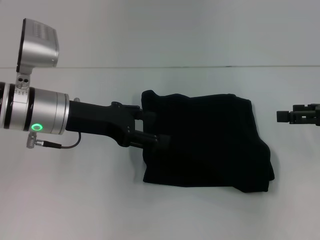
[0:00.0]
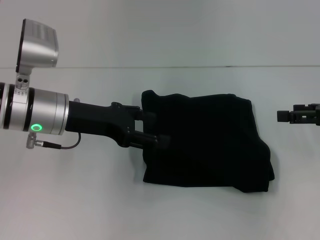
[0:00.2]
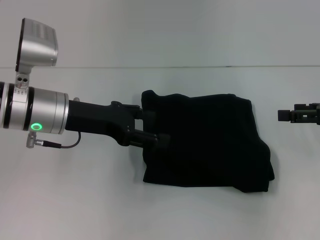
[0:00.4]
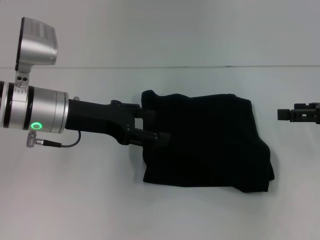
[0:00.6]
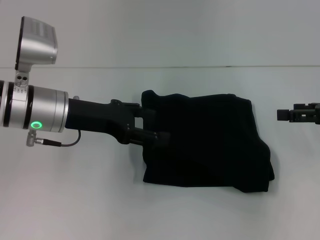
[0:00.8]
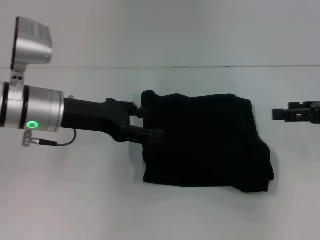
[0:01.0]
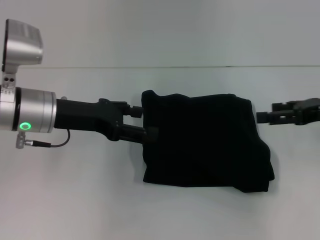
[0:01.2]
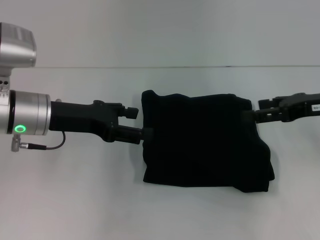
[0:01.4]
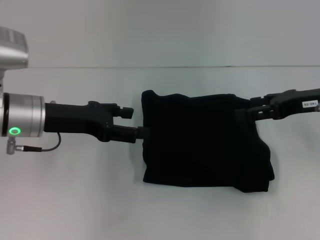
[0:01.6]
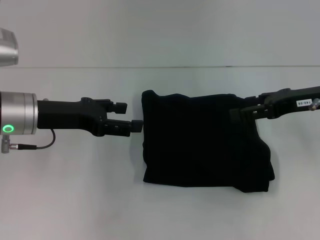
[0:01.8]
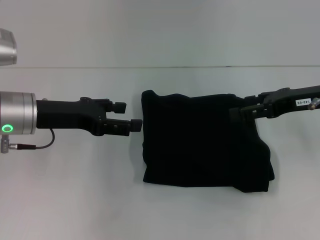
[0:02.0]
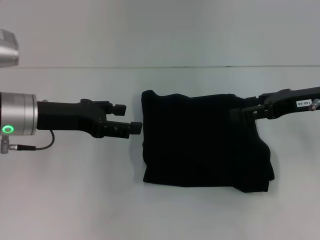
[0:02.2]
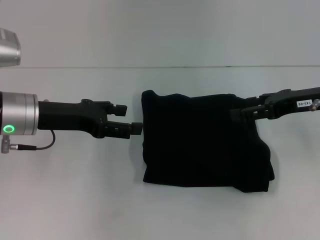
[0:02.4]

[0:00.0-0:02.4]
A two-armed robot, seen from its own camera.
0.0 to 1.2 s: The grippers make only small movements.
1.2 to 2.4 s: The grippers move only a little.

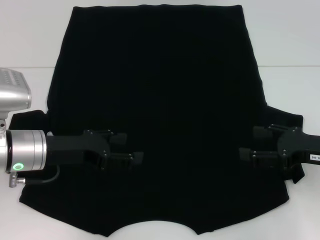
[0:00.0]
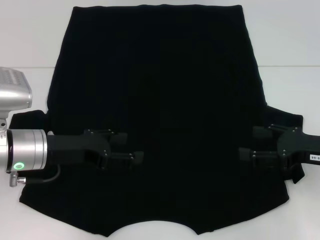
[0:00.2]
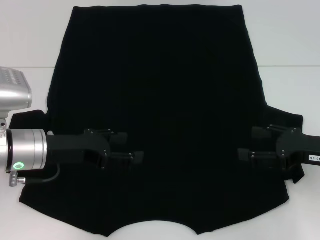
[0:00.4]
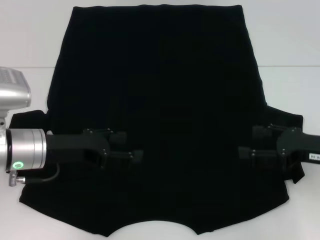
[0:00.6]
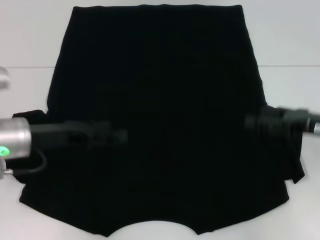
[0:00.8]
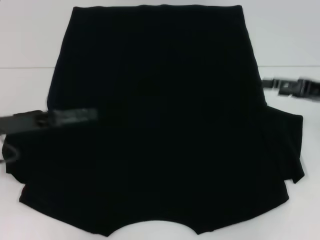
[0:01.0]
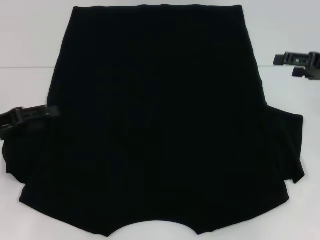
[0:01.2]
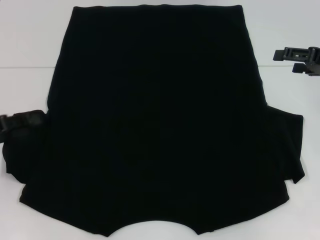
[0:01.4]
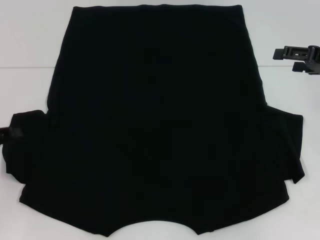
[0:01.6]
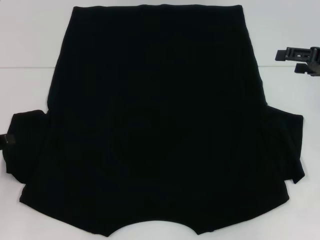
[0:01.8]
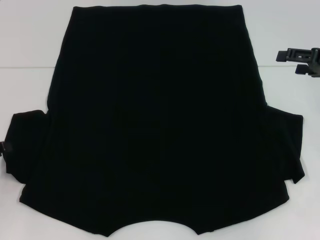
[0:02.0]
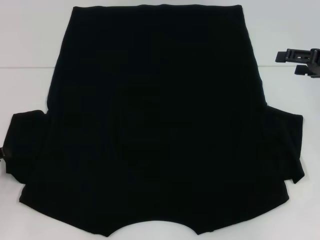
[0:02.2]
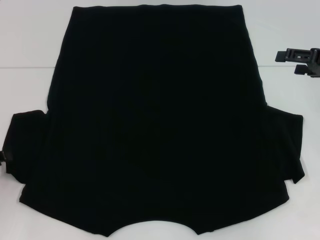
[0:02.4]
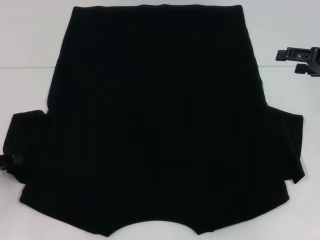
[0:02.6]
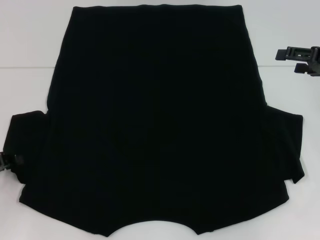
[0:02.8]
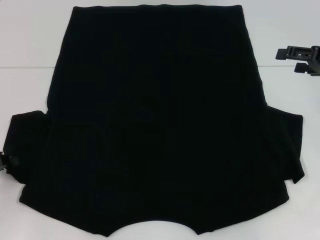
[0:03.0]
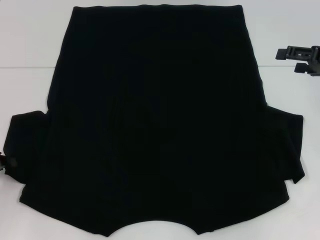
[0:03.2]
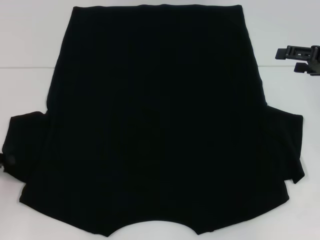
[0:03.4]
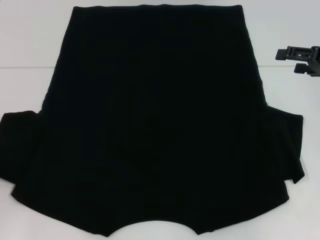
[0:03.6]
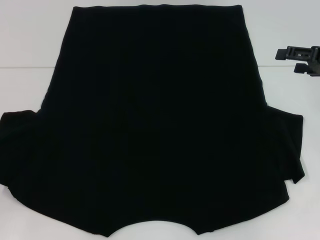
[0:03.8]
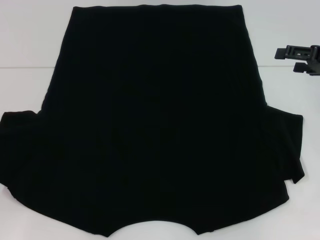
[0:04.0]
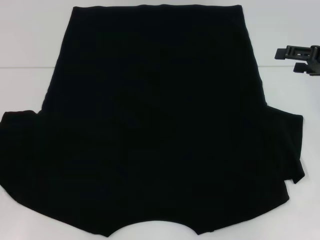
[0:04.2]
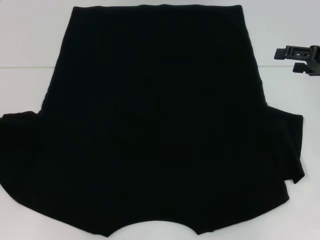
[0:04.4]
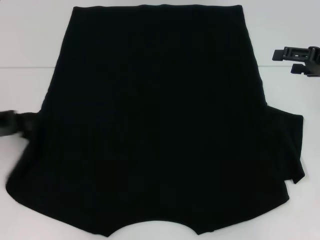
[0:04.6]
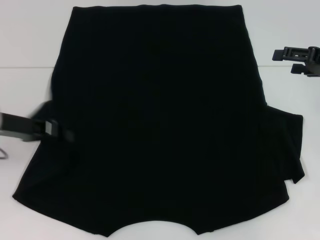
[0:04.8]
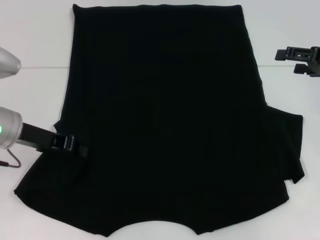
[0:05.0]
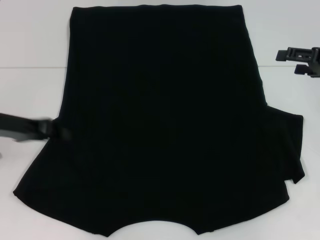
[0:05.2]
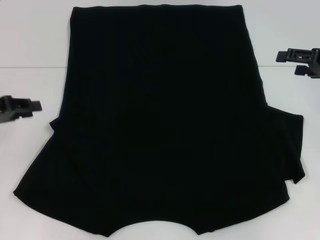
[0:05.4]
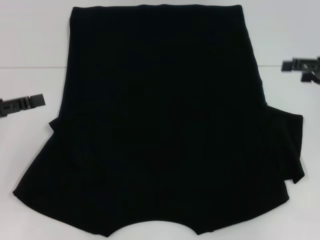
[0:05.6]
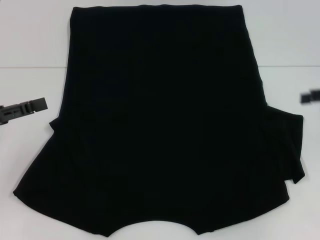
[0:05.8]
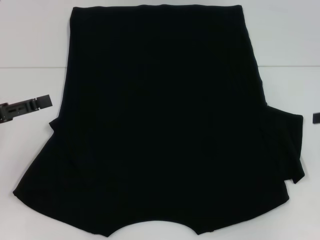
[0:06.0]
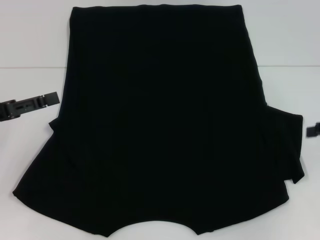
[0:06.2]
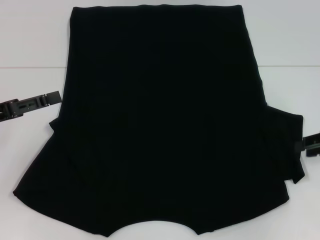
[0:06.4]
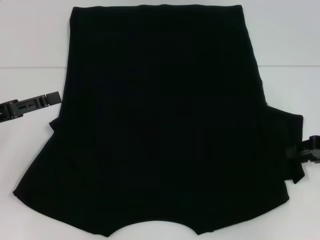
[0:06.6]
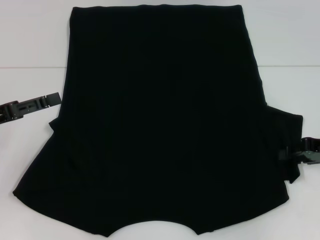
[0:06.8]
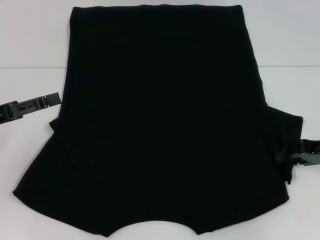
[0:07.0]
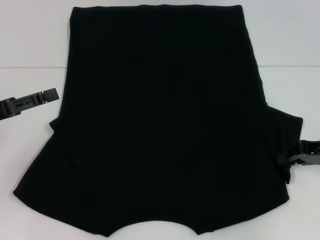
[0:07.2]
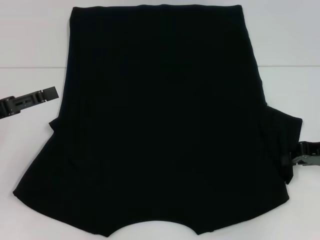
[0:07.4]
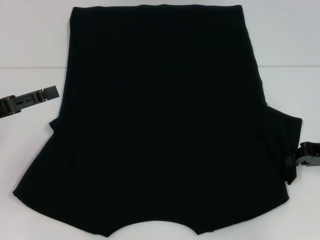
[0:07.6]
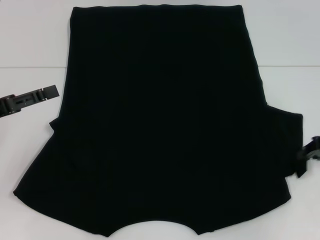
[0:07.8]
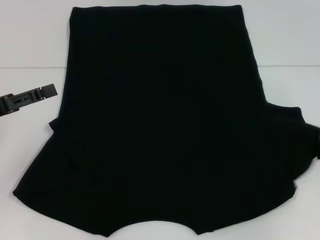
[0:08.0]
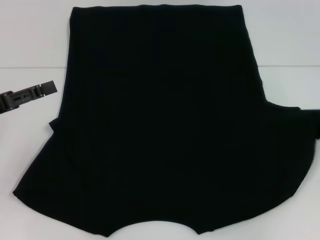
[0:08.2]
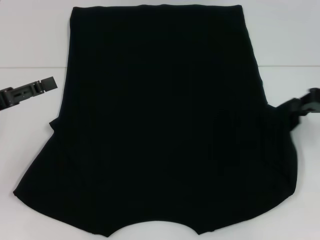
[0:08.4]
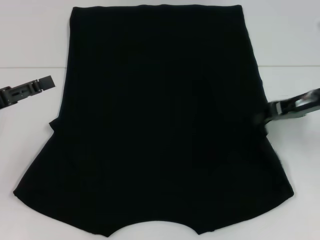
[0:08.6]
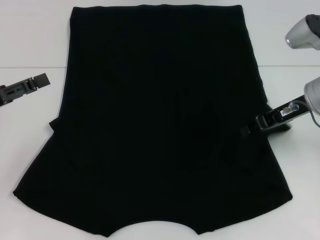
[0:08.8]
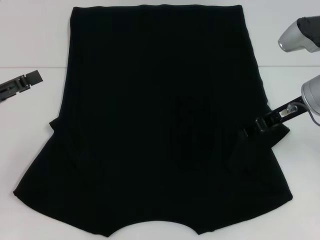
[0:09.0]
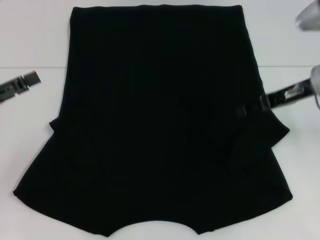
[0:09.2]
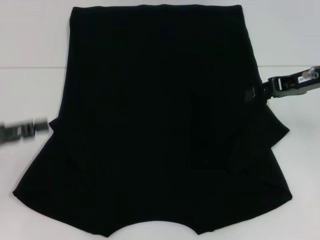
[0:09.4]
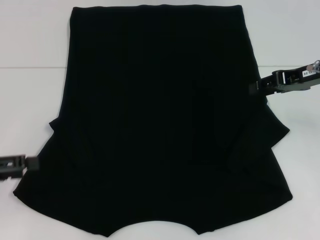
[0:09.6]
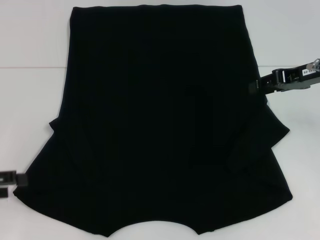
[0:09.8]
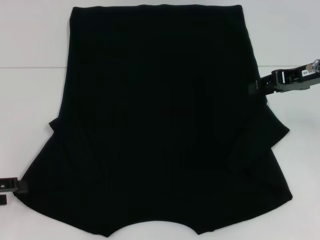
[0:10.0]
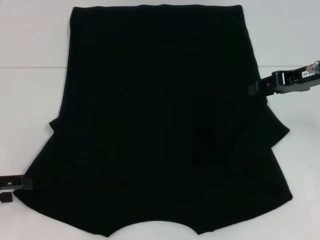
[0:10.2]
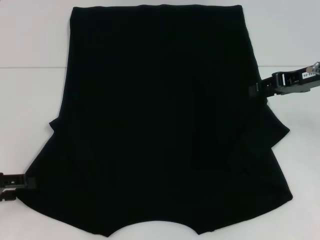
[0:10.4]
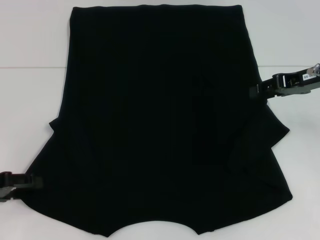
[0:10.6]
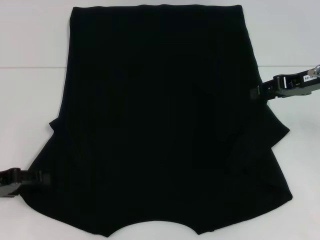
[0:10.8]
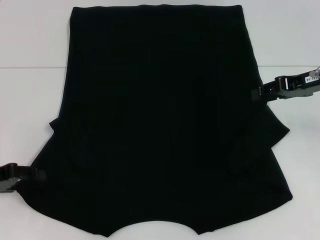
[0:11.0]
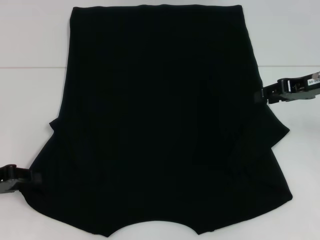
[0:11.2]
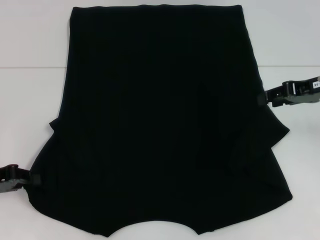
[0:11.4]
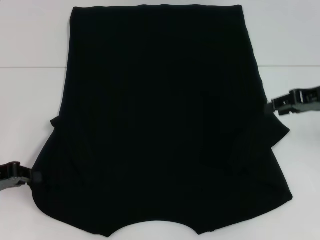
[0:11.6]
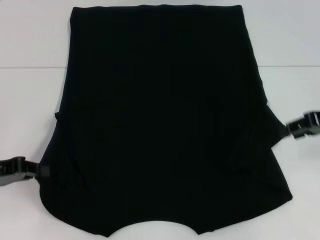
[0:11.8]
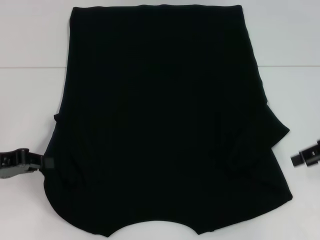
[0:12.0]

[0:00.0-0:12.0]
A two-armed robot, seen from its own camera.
Step, 0.0 to 5.0 s: Fold the bottom left sleeve with your left hand.
Step, 5.2 to 9.0 s: Fold the bottom right sleeve with your right hand.
Step, 9.2 to 11.8 s: Grab the bottom left corner with your left hand.
0.0 to 1.6 s: The right gripper travels forward and upward by approximately 10 cm, while the left gripper goes about 15 cm to the left.
3.0 to 4.4 s: The left gripper moves upward, some 5 cm.
4.4 to 6.0 s: The left gripper moves roughly 15 cm to the right and comes back, and opens up; the right gripper is displaced backward by approximately 5 cm.
6.0 to 7.6 s: The right gripper moves downward and to the left, approximately 10 cm, and closes its fingers.
7.6 to 9.0 s: The right gripper heads to the left, upward and forward, covering roughly 10 cm.
9.0 to 10.4 s: The right gripper changes place by some 5 cm; the left gripper changes place by approximately 5 cm.
10.4 to 12.0 s: The right gripper heads backward and to the right, covering about 10 cm, while the left gripper closes.

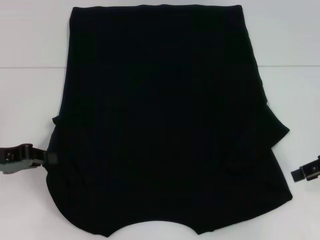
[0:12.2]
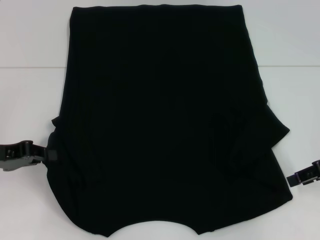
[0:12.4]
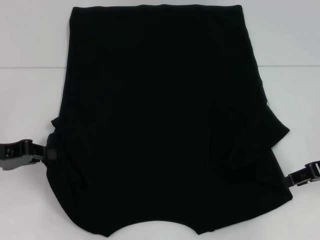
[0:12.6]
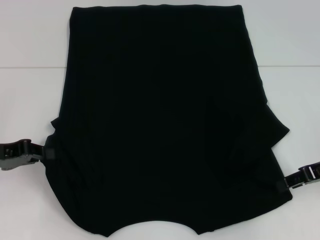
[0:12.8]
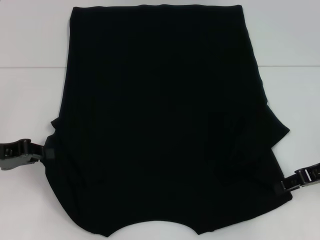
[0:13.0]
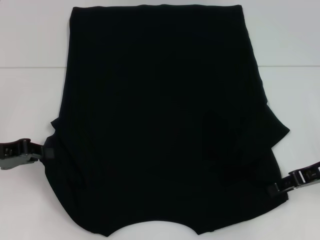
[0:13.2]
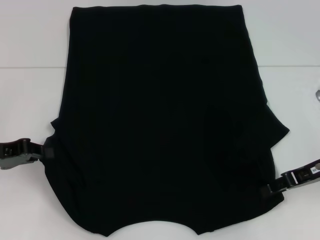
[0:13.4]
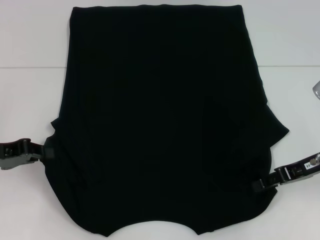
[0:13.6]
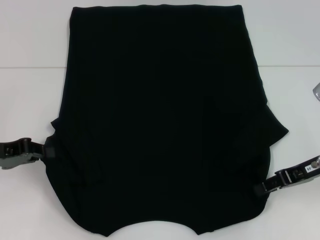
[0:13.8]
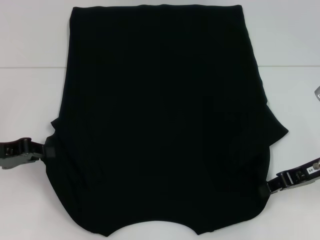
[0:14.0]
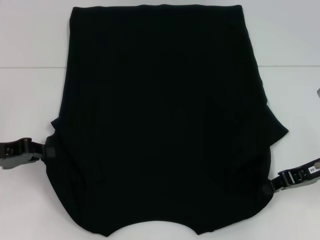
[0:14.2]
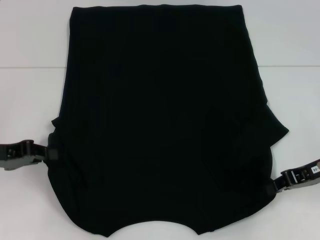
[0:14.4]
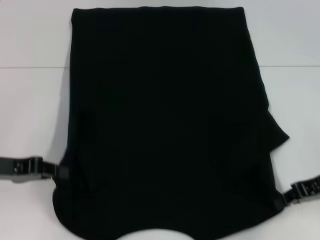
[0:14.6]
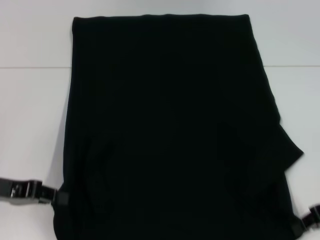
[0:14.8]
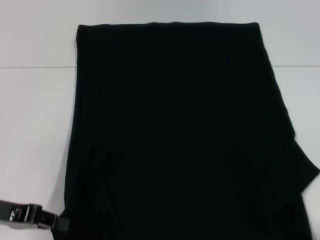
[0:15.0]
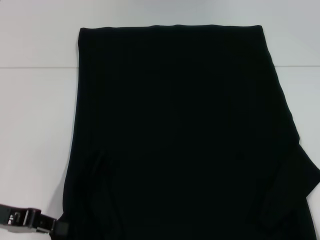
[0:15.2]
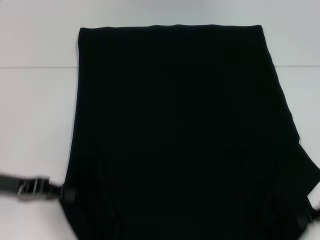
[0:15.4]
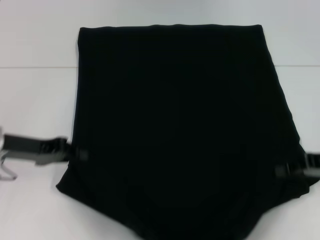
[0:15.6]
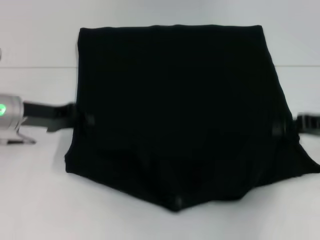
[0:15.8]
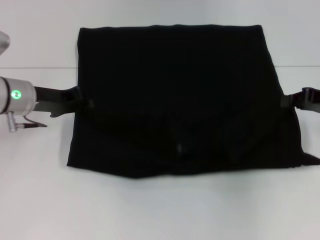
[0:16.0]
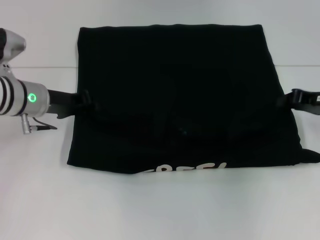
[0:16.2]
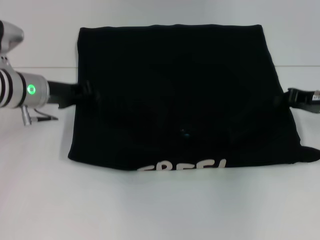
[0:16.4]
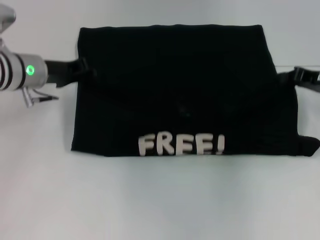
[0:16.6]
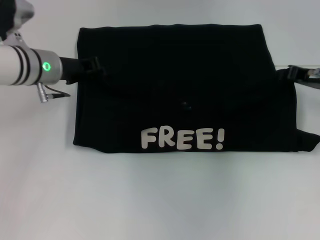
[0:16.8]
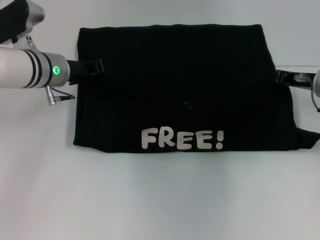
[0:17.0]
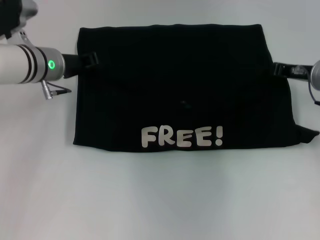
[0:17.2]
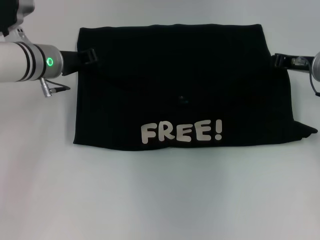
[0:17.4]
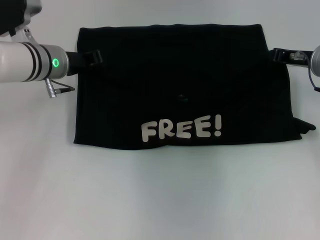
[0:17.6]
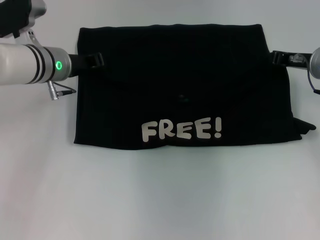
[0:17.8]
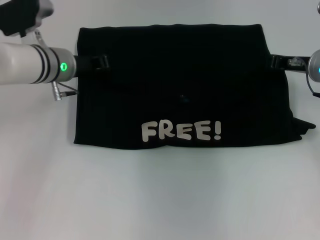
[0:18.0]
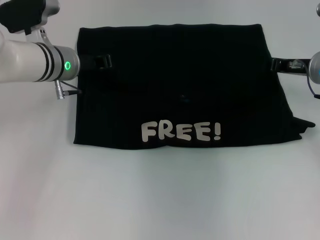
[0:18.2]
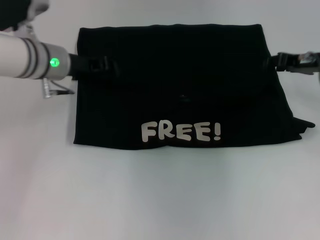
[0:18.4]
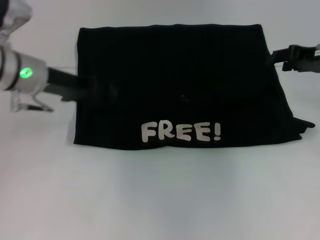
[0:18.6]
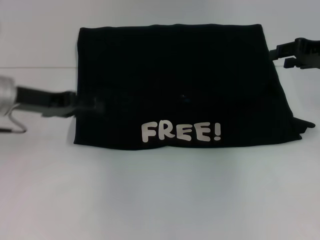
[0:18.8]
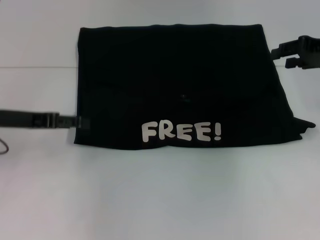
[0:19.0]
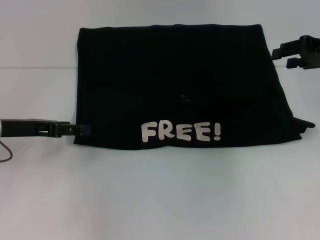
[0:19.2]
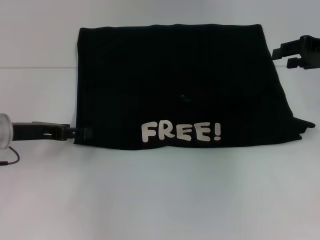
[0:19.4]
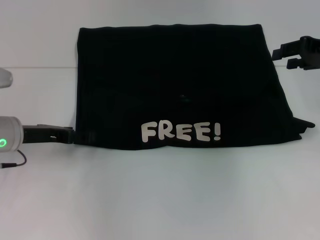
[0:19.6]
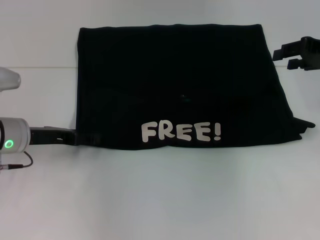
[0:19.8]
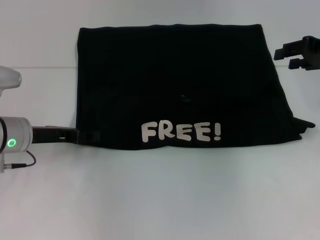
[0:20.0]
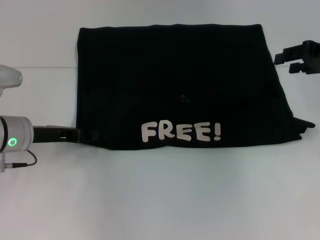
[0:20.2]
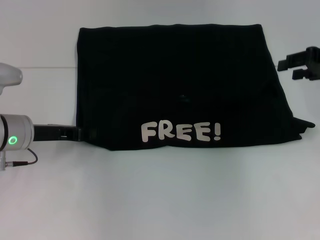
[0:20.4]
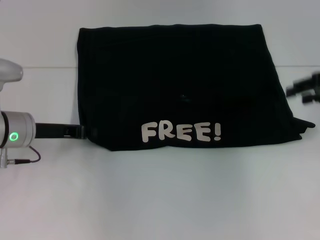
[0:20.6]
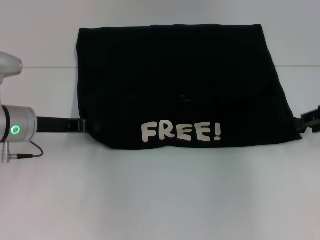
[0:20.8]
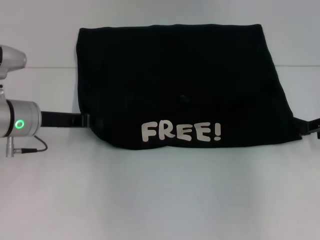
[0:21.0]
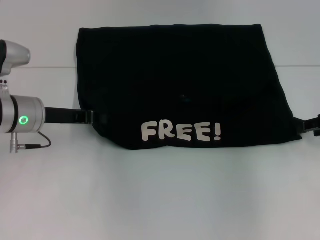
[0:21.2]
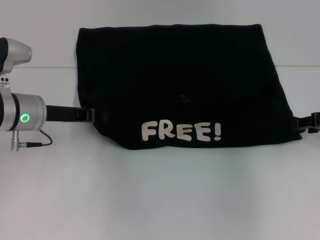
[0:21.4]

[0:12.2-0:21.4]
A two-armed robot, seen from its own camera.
Step, 12.2 to 14.0 s: Grab the bottom right corner with your right hand.
Step, 14.2 to 18.4 s: Fold the clothes with your left hand.
Step, 14.2 to 18.4 s: Fold the clothes with your right hand.
12.2 to 13.8 s: The right gripper heads to the left, covering about 5 cm.
13.8 to 15.2 s: The left gripper changes place by approximately 5 cm; the right gripper moves backward and to the right, roughly 10 cm, and closes up.
15.2 to 16.8 s: The right gripper shifts some 20 cm forward. The left gripper heads forward and to the right, covering about 20 cm.
16.8 to 18.4 s: There are only small adjustments of the grippers.
18.4 to 19.8 s: The left gripper moves backward, downward and to the left, about 15 cm, and opens up. Meanwhile the right gripper is displaced upward by approximately 5 cm, and opens.
19.8 to 21.4 s: The right gripper travels downward by approximately 10 cm. The left gripper closes its fingers.
